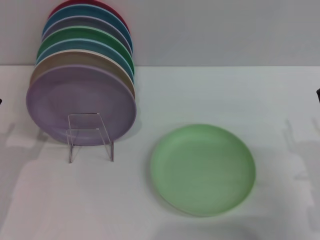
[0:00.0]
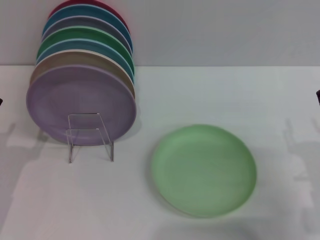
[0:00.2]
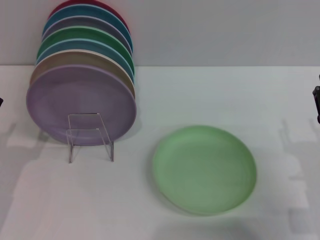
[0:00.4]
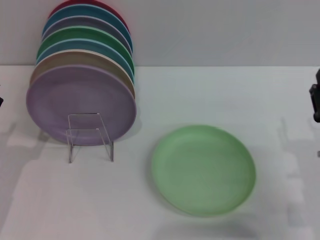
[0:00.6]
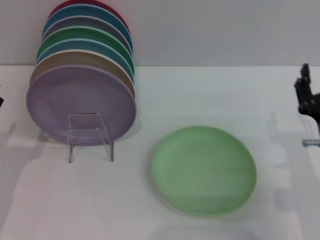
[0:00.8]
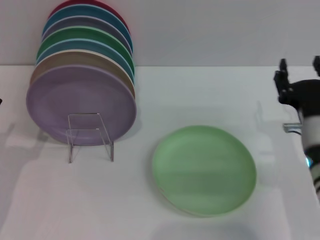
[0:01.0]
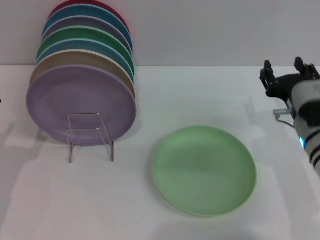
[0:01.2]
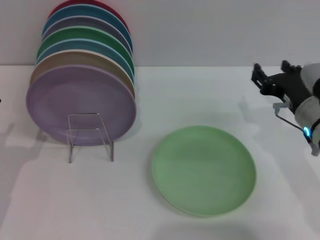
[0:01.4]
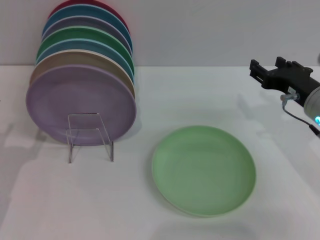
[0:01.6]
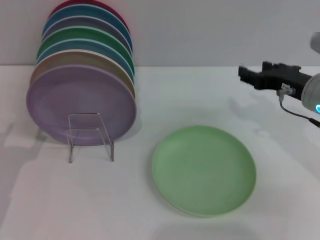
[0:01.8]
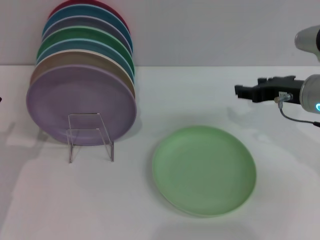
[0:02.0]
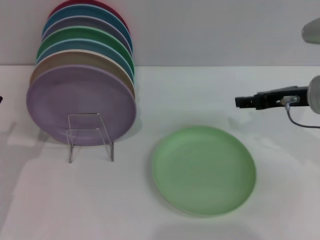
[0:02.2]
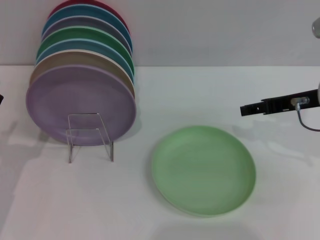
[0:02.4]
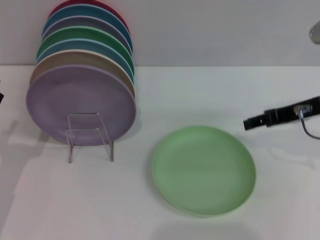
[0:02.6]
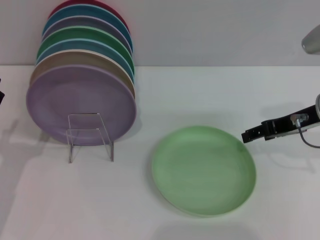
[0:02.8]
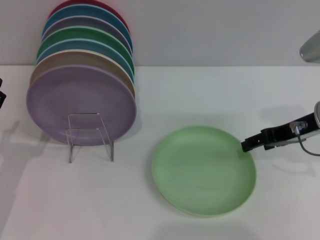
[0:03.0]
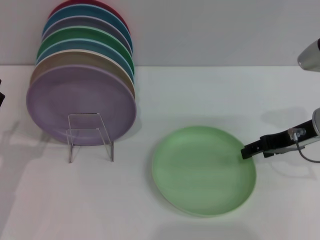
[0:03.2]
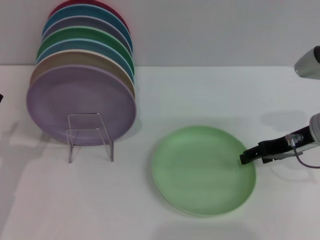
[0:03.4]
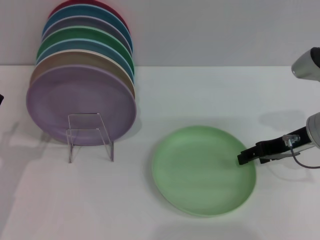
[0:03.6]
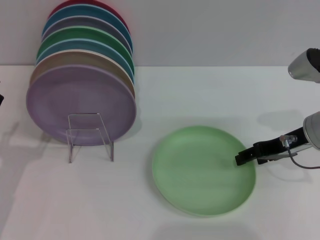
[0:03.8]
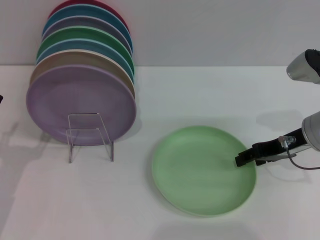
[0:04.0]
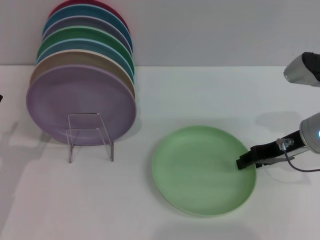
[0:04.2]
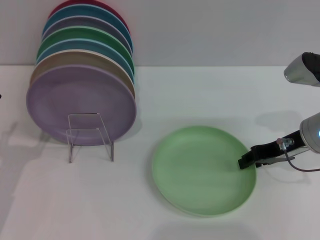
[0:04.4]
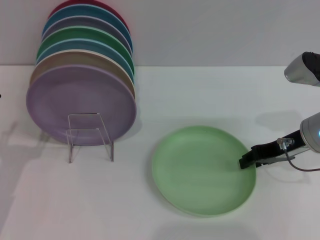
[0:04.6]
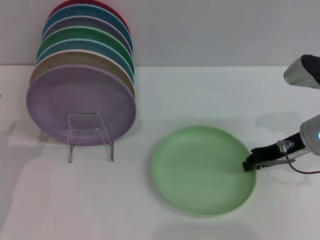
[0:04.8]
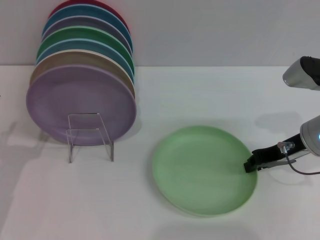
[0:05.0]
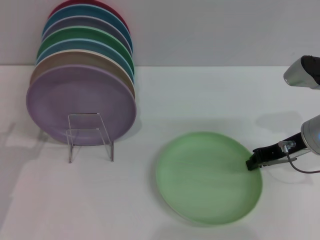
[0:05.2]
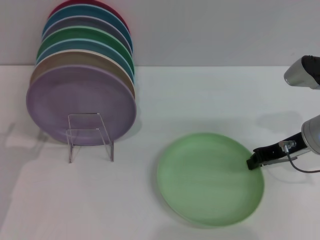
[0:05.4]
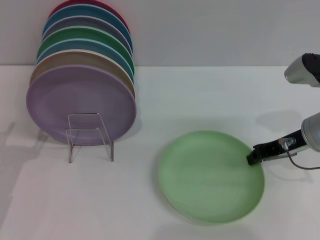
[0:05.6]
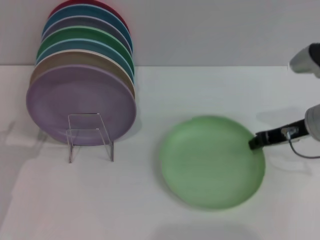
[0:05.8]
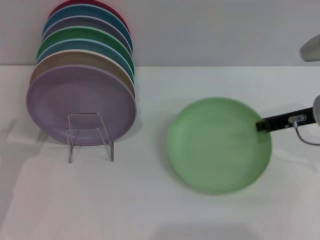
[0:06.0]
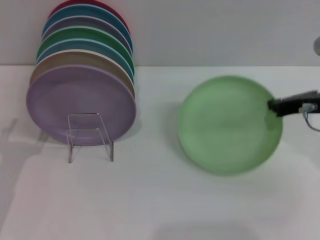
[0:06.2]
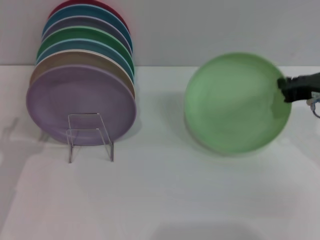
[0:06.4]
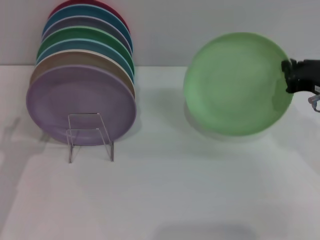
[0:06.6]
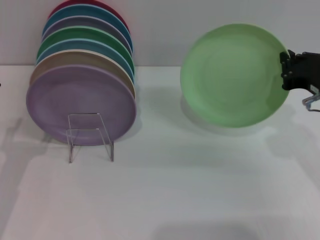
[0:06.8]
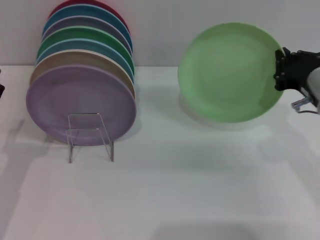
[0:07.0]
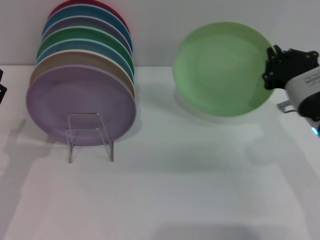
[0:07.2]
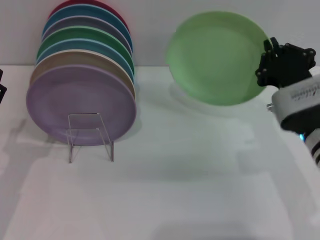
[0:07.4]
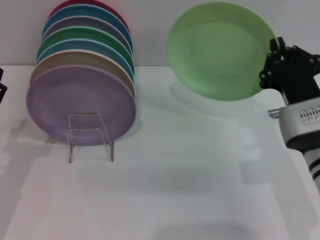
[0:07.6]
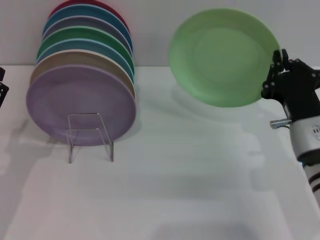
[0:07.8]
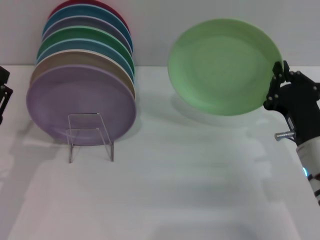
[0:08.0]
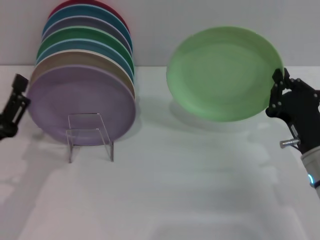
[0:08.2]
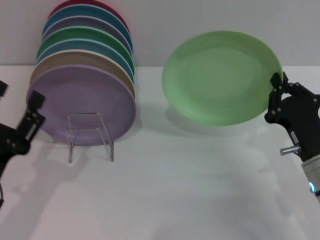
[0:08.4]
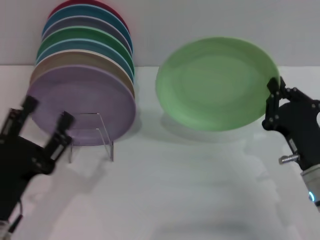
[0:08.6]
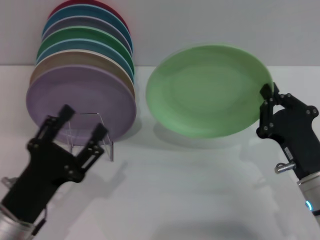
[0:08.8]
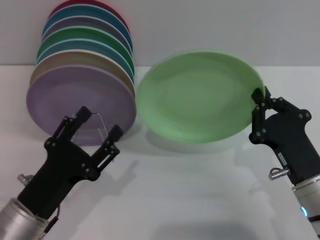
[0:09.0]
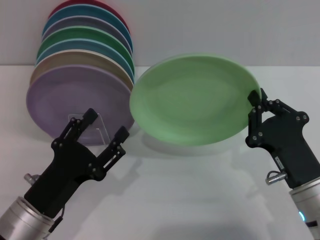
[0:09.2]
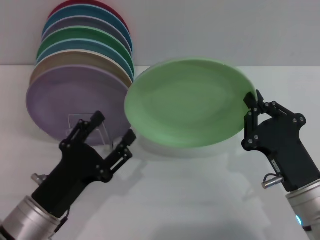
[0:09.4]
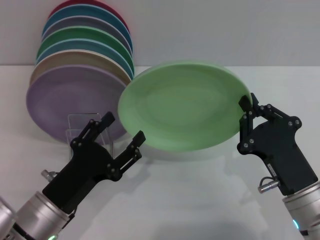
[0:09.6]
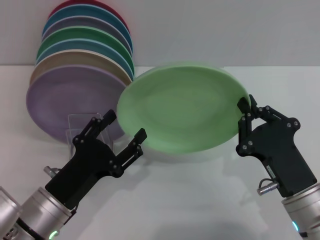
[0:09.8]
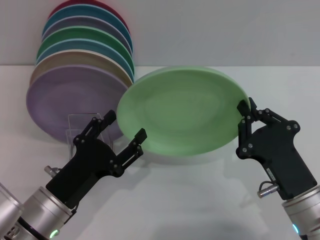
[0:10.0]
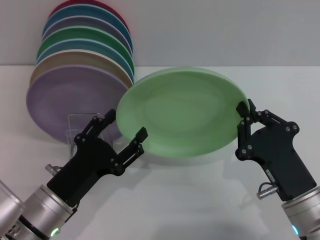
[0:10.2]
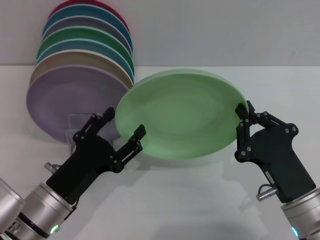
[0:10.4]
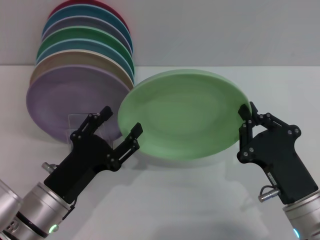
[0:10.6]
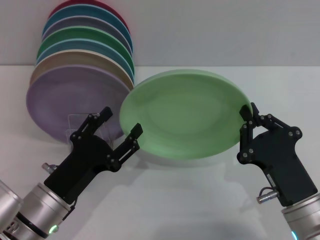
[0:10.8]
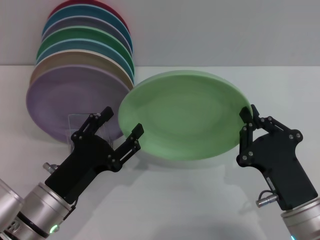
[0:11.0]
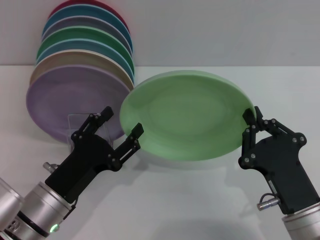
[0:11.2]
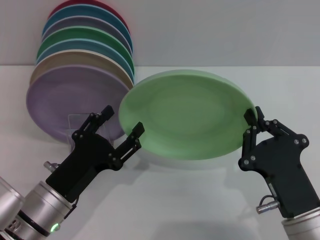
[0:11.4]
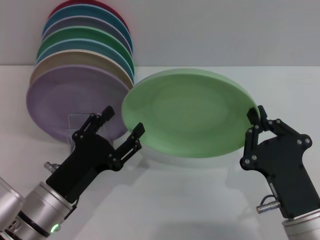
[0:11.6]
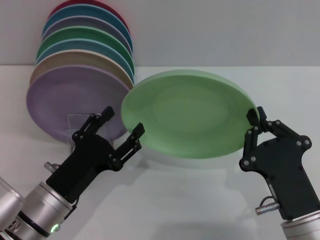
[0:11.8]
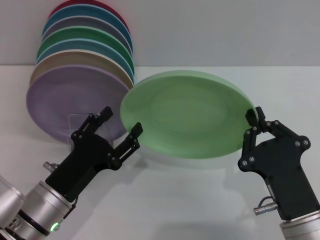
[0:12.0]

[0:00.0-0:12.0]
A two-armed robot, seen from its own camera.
Task of the whole recording: Grip the plate with one hand, pass it to the other, then set it on the shelf.
Step, 0:00.0 to 0:06.4: Pick up the plate with the right gripper.
0:00.0 to 0:01.6: The right gripper shifts roughly 15 cm forward and upward.
0:03.0 to 0:04.4: The right gripper closes its fingers.
0:04.4 to 0:06.0: The right gripper closes up.
0:06.0 to 0:07.6: The right gripper shifts roughly 10 cm backward and to the left.
0:07.6 to 0:09.0: The left gripper is displaced to the right by about 10 cm. Meanwhile the right gripper heads downward and backward, covering approximately 10 cm.
0:10.4 to 0:12.0: There are only small adjustments of the grippers.

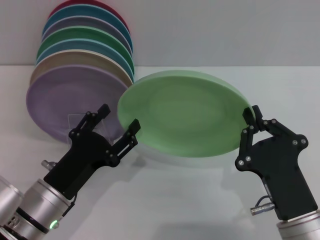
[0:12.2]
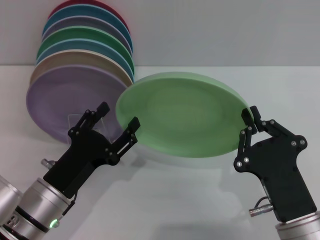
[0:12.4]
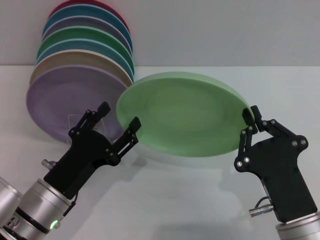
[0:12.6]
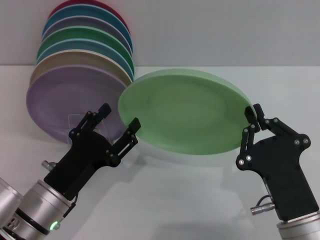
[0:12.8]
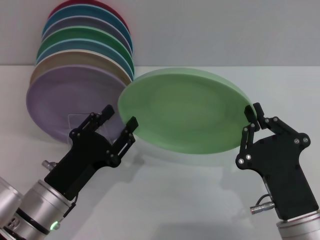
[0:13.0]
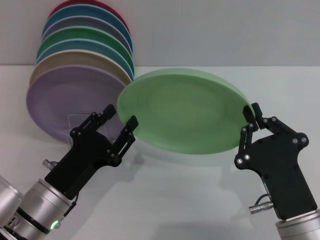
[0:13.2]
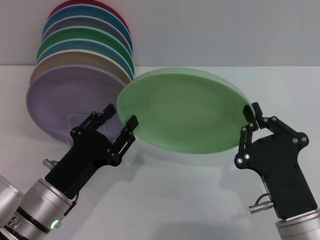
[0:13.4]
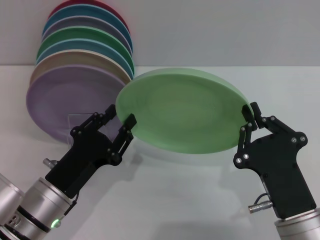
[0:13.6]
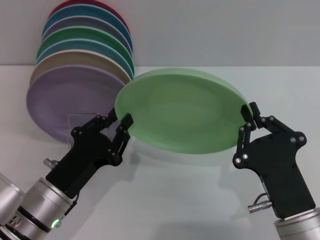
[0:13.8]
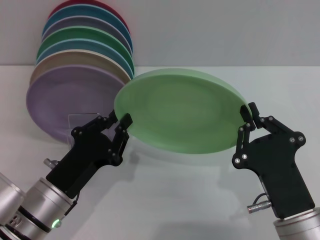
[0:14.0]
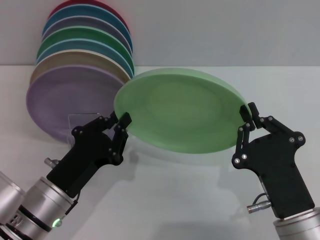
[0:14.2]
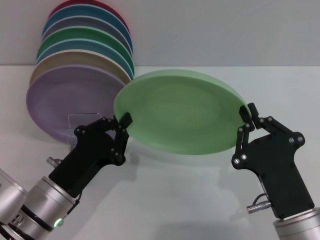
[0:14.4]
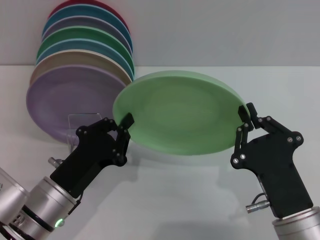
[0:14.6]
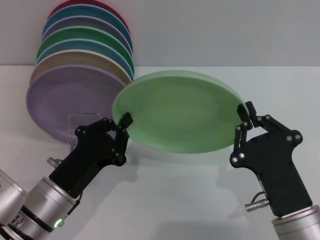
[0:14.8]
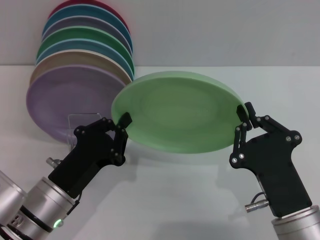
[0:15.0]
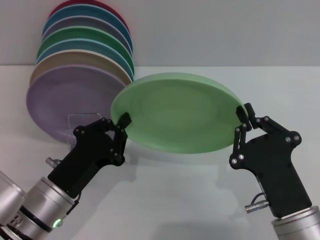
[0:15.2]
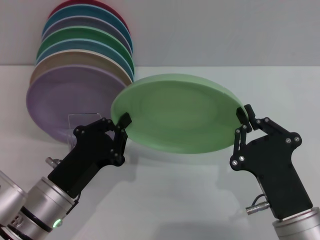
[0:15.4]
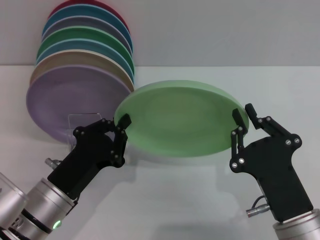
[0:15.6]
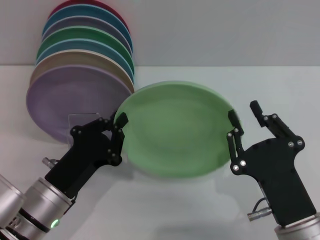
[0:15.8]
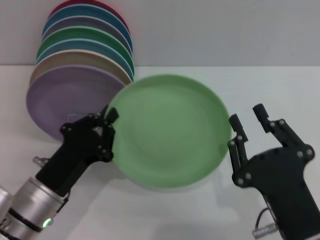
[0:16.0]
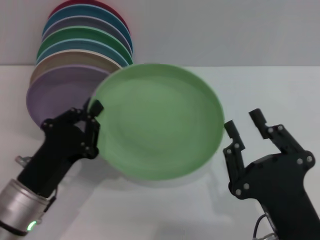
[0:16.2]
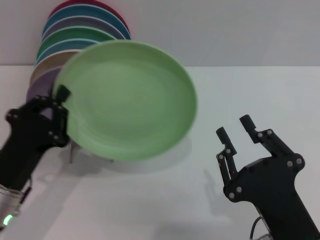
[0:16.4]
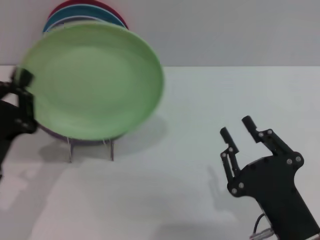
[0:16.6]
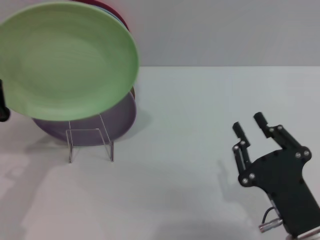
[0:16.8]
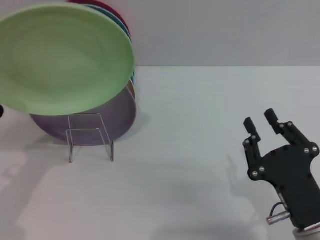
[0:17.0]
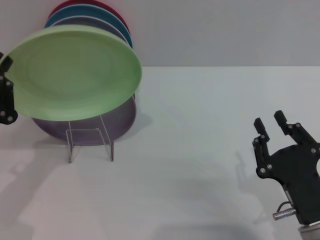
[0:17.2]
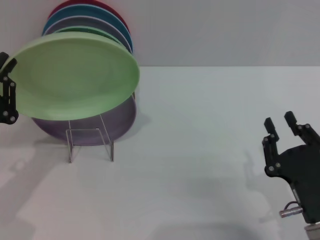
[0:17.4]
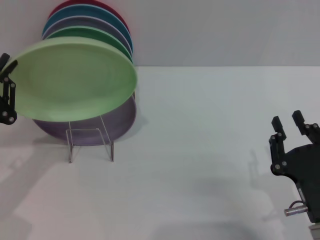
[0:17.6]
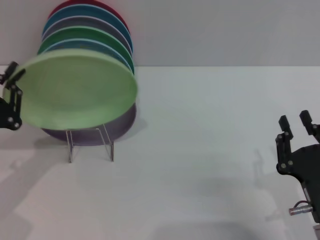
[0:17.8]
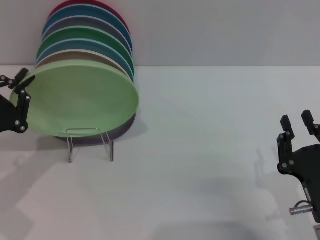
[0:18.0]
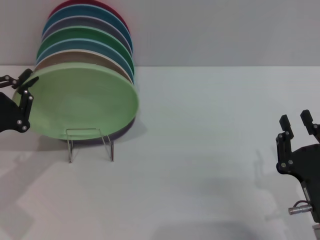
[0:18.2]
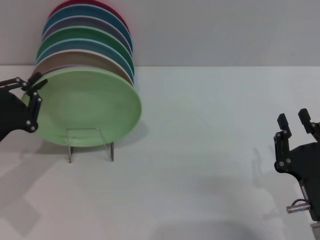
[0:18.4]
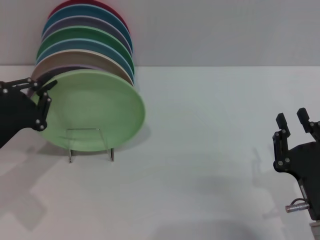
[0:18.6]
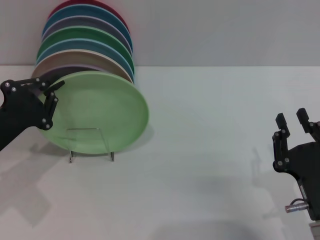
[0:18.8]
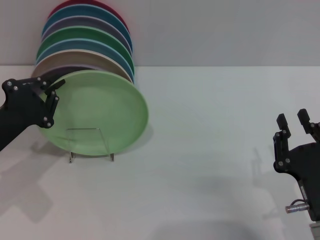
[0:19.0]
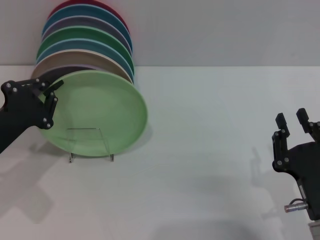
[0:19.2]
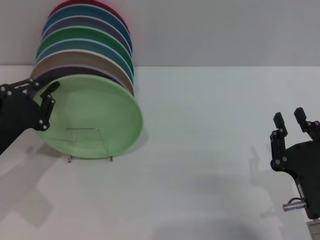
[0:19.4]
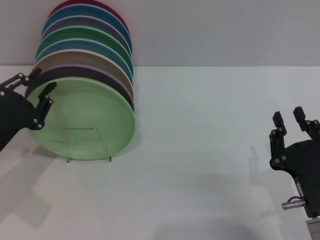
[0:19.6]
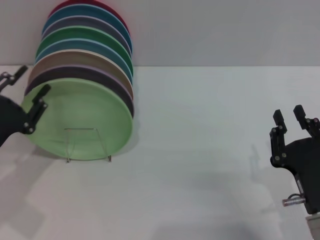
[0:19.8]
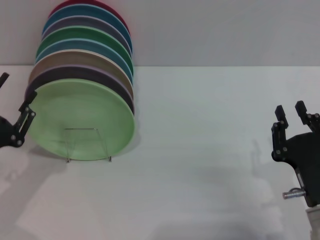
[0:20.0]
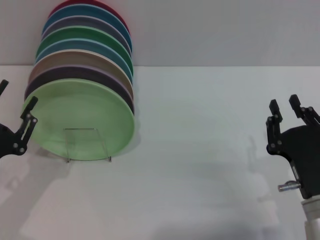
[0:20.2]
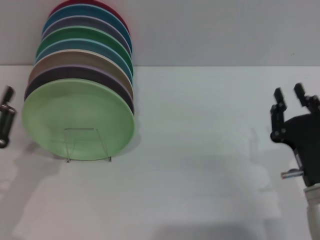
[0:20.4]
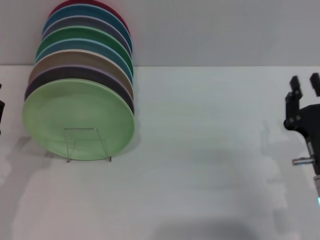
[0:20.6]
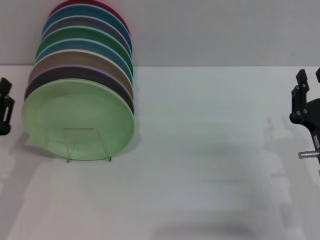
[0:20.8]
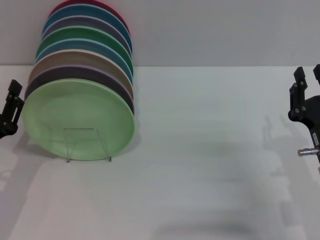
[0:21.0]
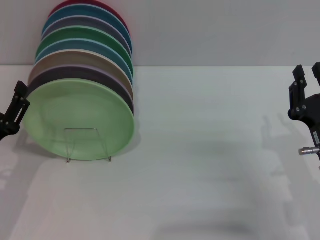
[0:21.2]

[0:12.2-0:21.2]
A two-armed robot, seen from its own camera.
Task of the whole recording: Grip the plate with one hand, pass it to the other, then set it on the shelf.
Step, 0:12.2 to 0:15.8: Pass the plate from the right gripper to the left gripper.
Step, 0:16.0 to 0:20.0: Place the plate on the shelf with the left gripper.
0:12.2 to 0:13.8: The left gripper closes its fingers.
0:13.8 to 0:15.2: The left gripper closes its fingers.
0:15.2 to 0:16.6: The left gripper goes approximately 5 cm to the left, while the right gripper opens its fingers.
0:16.6 to 0:18.2: The left gripper goes approximately 5 cm to the left, while the right gripper moves some 5 cm.
0:18.2 to 0:19.8: The grippers stay close to where they were, moving slightly.
0:19.8 to 0:21.2: The right gripper shifts some 5 cm forward; the left gripper opens.

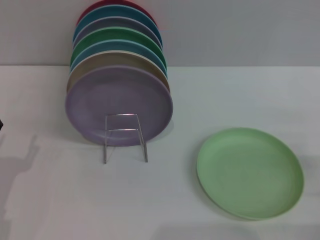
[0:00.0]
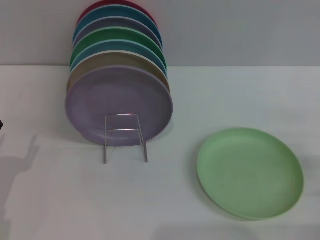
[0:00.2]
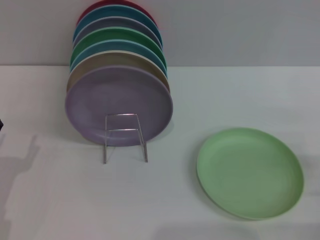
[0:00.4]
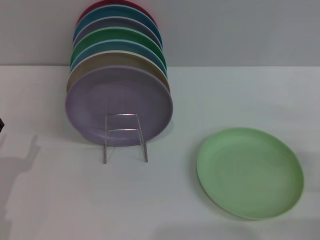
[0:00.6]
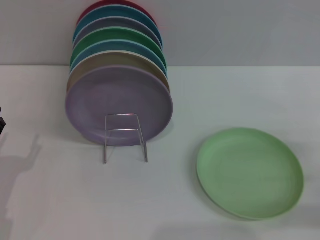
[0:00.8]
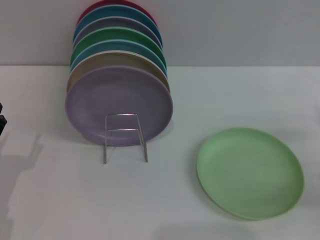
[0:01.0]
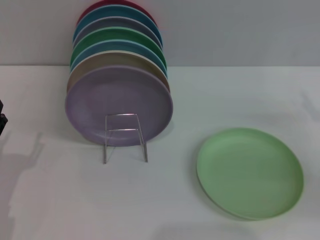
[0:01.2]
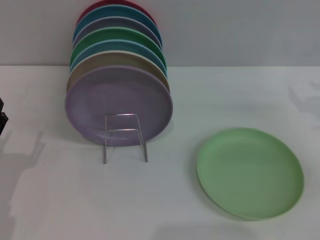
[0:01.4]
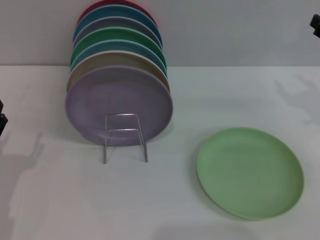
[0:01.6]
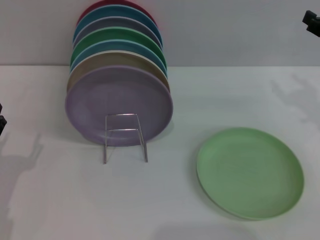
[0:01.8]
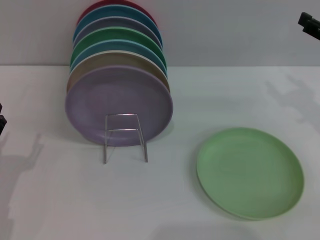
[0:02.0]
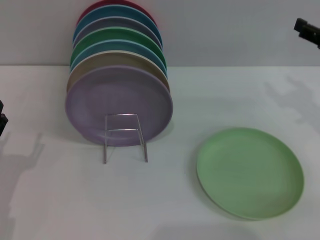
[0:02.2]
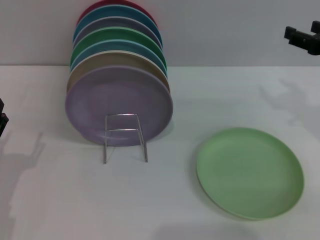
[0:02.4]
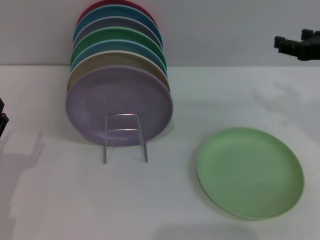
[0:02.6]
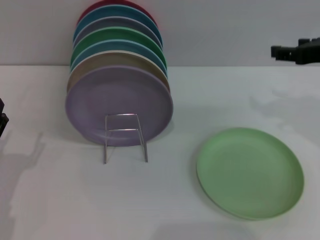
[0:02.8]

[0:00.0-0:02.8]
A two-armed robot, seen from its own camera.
Task of the whole recording: Grip the plate with one hand, pass it to the other, then set it on the shelf.
0:01.4 to 0:02.8: The right gripper heads upward and to the left, covering approximately 10 cm.
